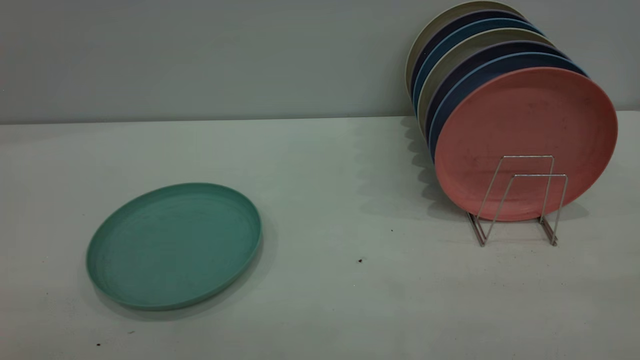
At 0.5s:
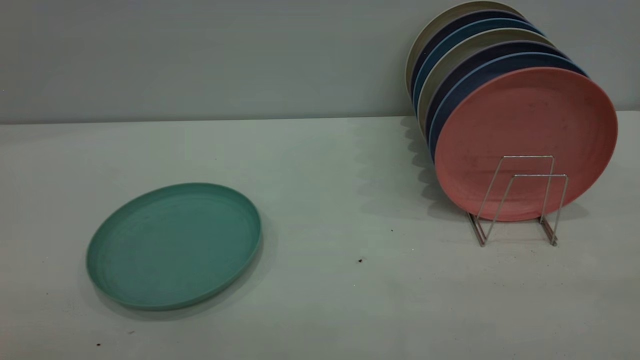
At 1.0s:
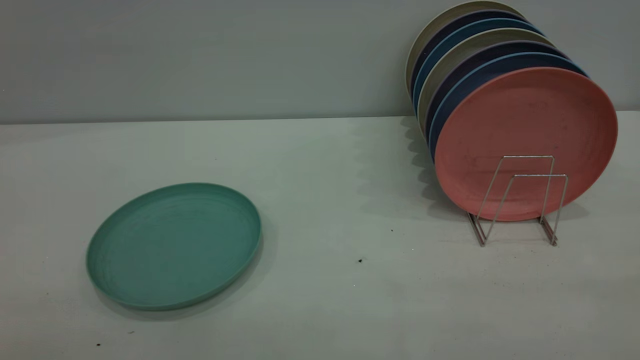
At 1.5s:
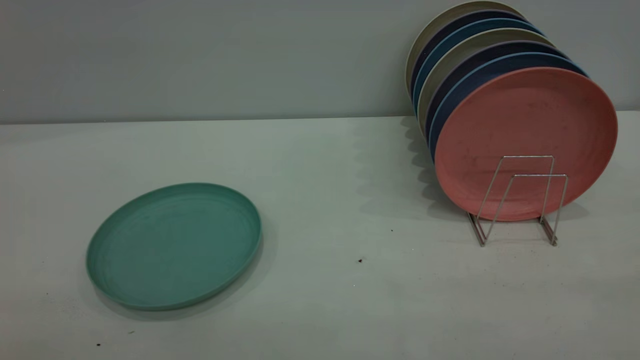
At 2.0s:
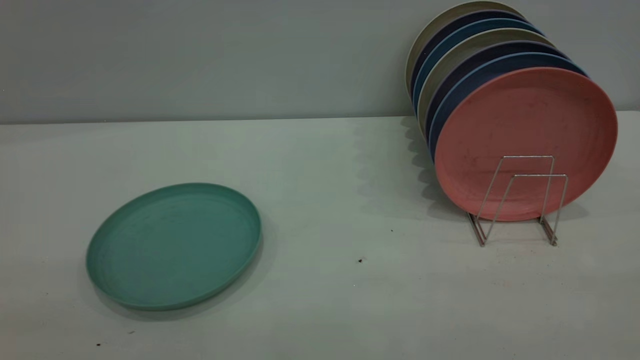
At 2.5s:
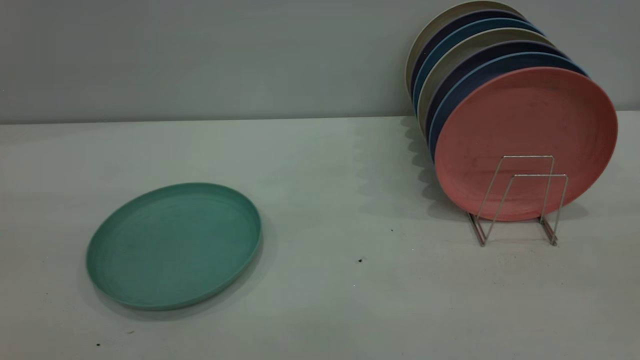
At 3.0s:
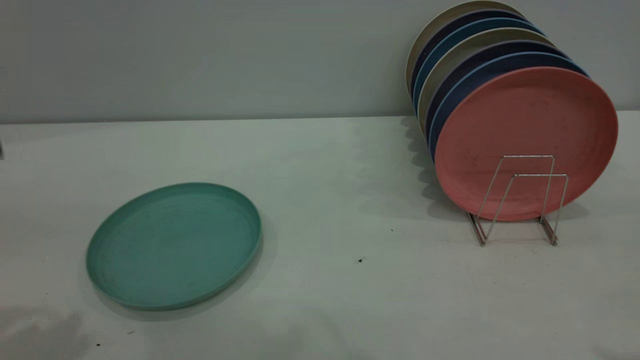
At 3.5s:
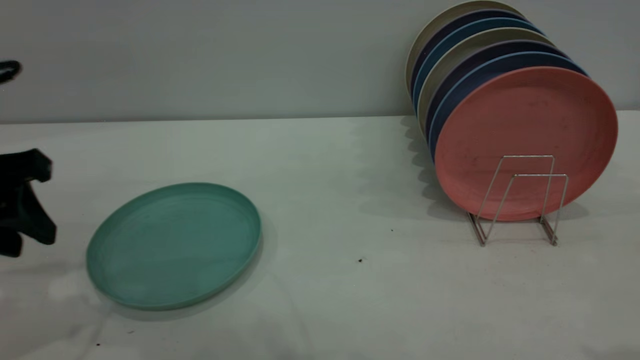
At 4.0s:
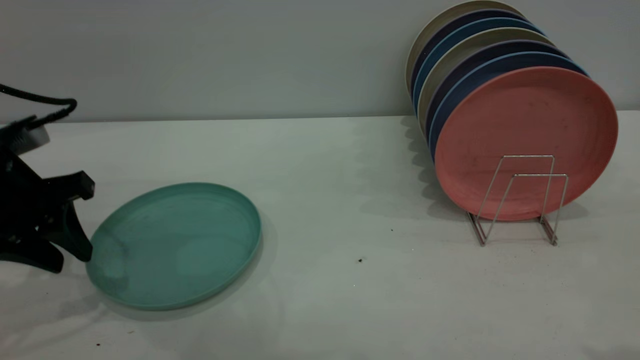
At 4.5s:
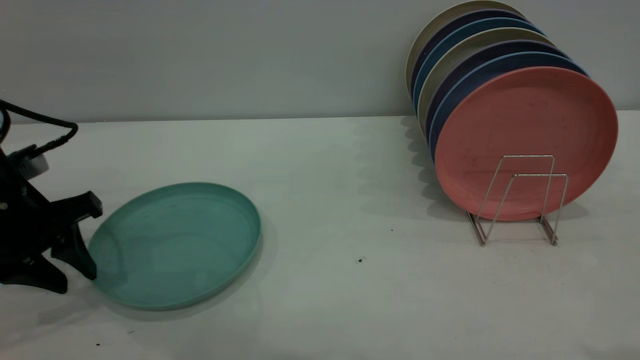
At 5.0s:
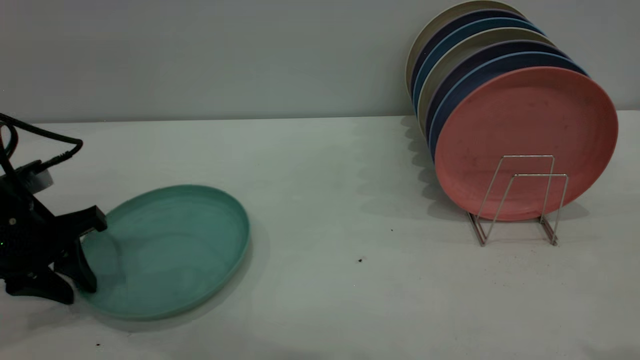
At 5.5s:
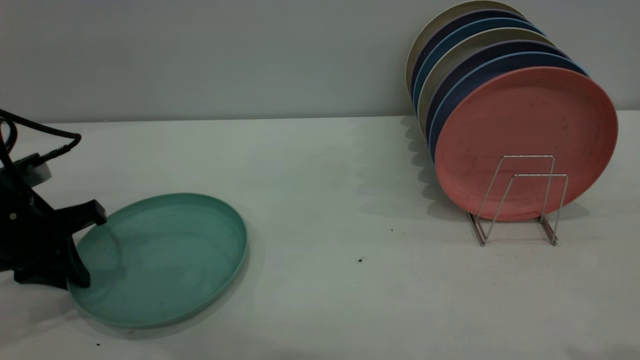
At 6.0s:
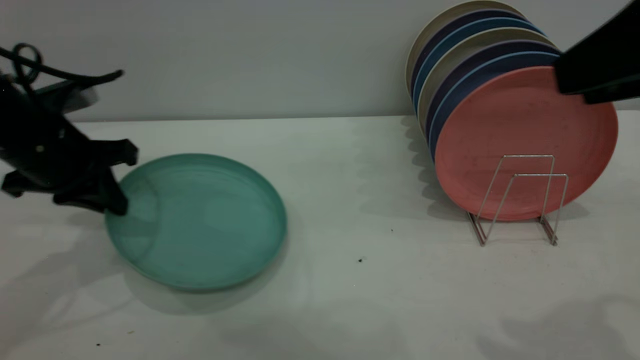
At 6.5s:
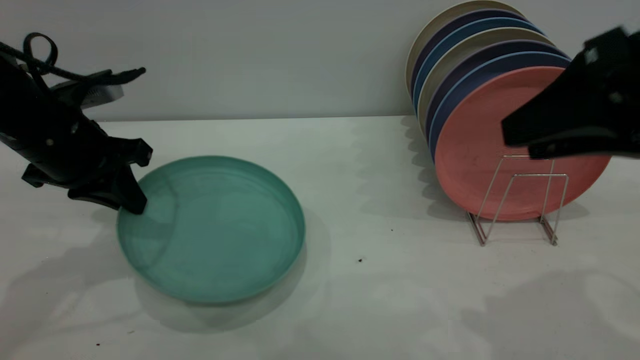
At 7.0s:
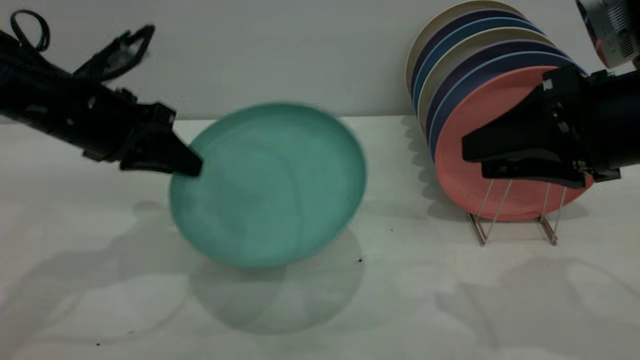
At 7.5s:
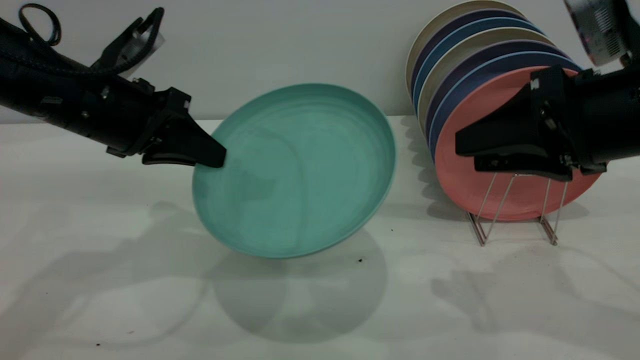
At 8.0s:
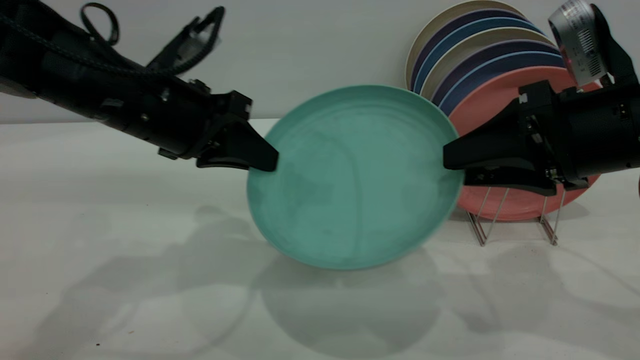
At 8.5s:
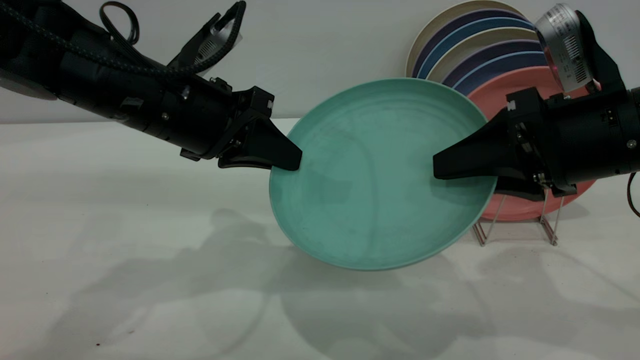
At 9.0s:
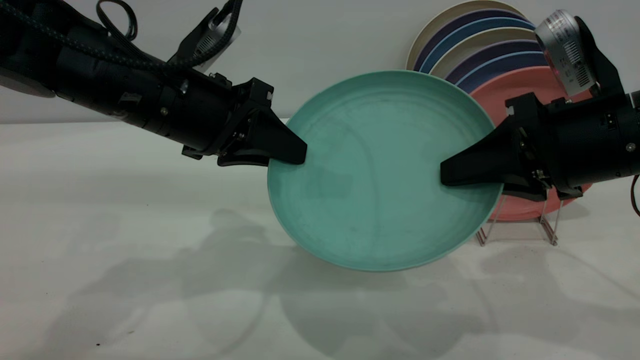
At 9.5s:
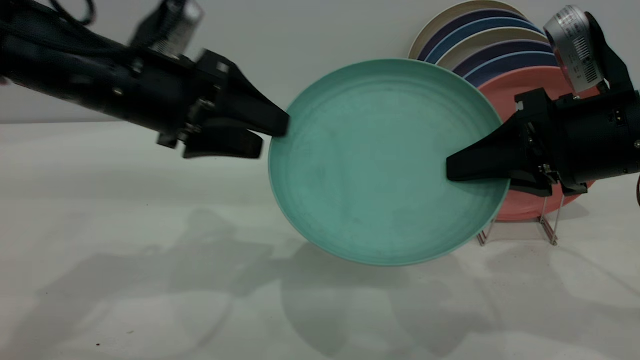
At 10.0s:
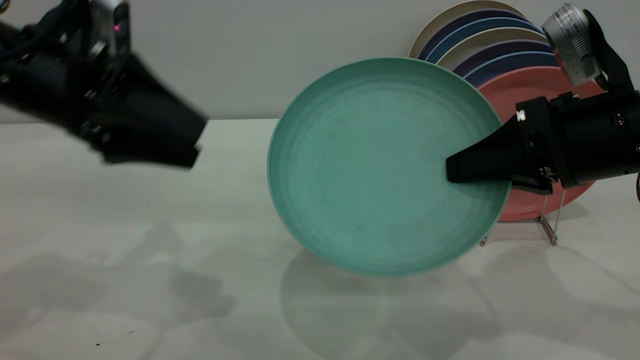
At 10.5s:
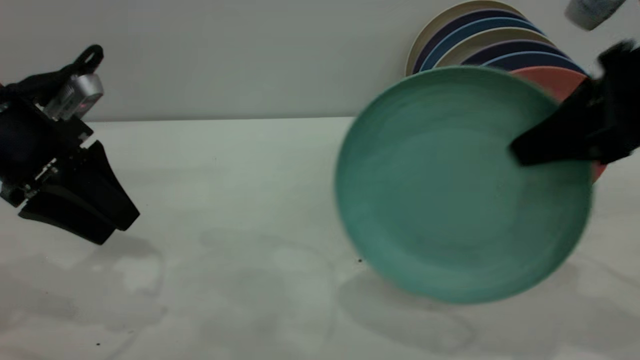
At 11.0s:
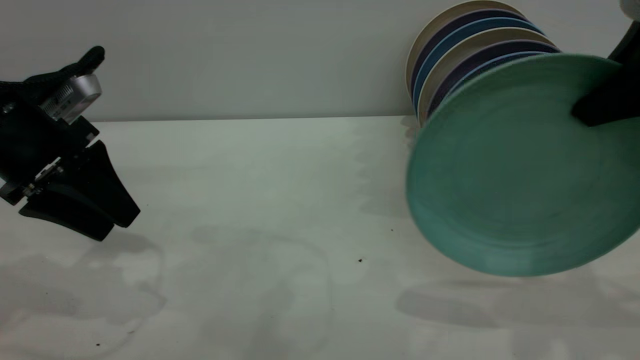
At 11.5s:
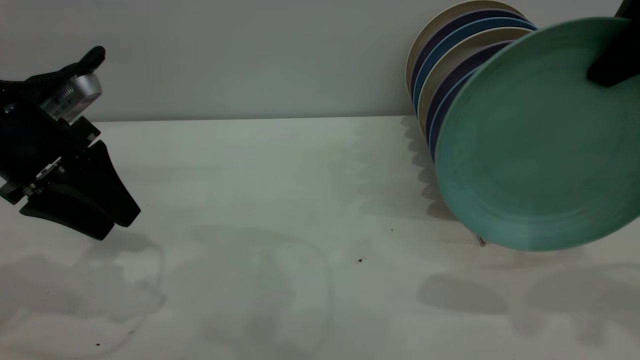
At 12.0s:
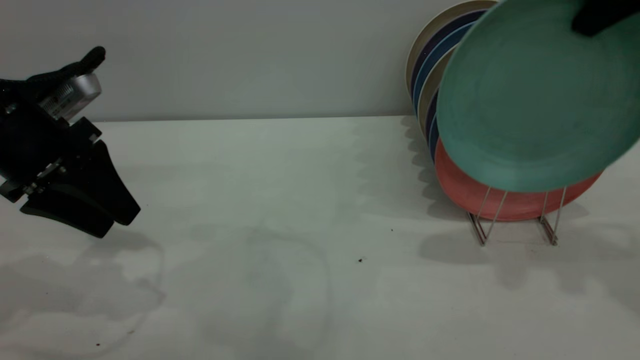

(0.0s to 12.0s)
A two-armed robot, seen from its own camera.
Task of the whole recording: the left gripper grasp the green plate, the left gripper pass the green plate to the right gripper, and the right gripper place the green plate on the plate rack.
Step, 0.0s - 6.5s: Pick up the plate with the left gripper.
Step, 7.0s - 10.0s: Pass the plate from the left gripper to the right gripper.
2.0s - 4.0s: The left gripper shifts roughly 40 cm forward and downward, and closes.
4.0s - 6.0s: The left gripper changes place by approximately 5 cm, and closes its fingers. The right gripper travels forward by some 5 cm.
6.0s - 8.0s: The left gripper shifts some 10 cm to the right. Meanwhile the right gripper shifts approximately 15 cm downward and forward.
8.0s - 10.0s: The right gripper closes; the left gripper shifts approximately 5 cm to the left, and opens its fingers.
10.0s - 12.0s: The right gripper goes some 20 cm upward and forward. The left gripper changes place by some 5 cm.

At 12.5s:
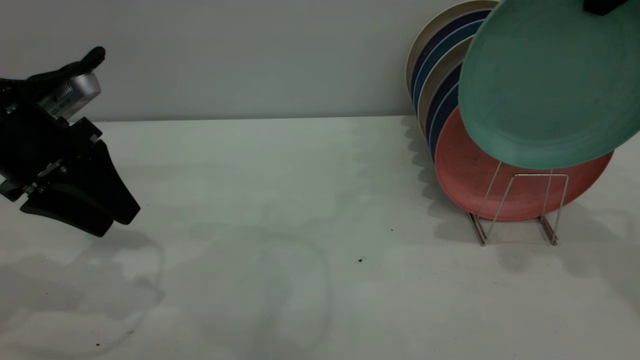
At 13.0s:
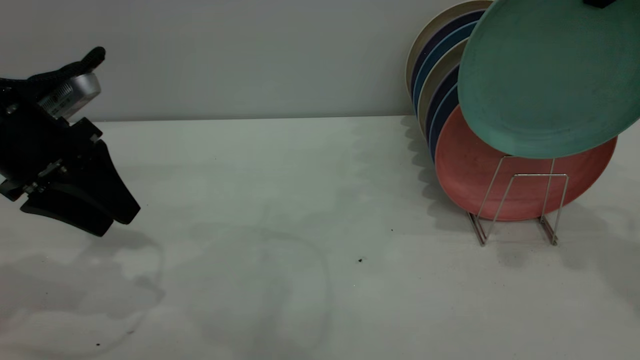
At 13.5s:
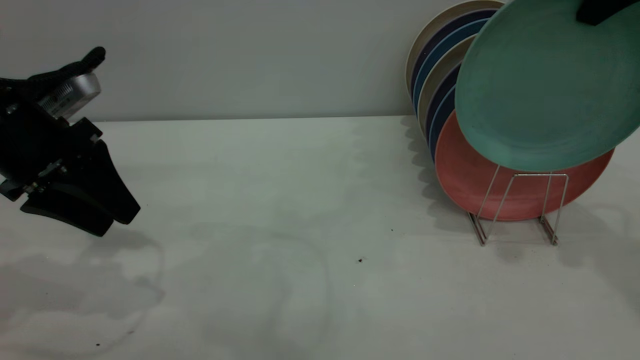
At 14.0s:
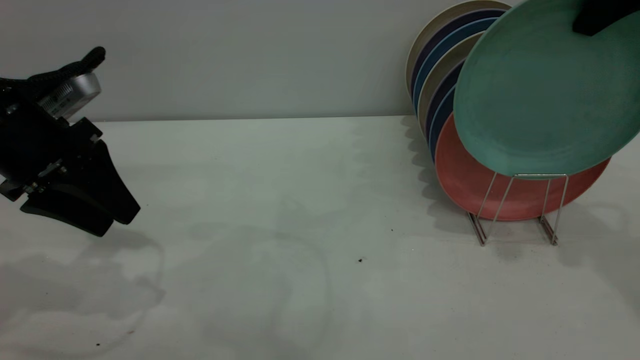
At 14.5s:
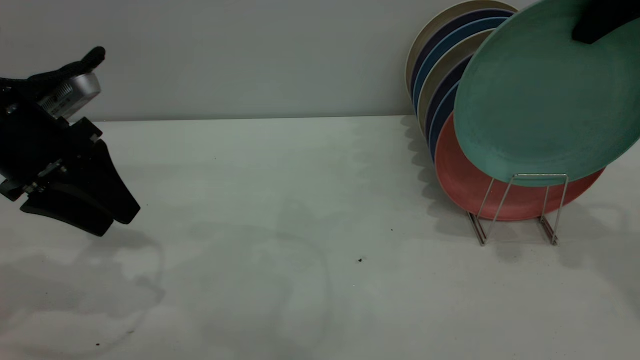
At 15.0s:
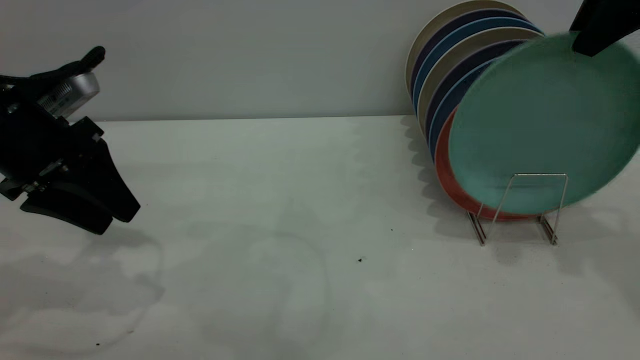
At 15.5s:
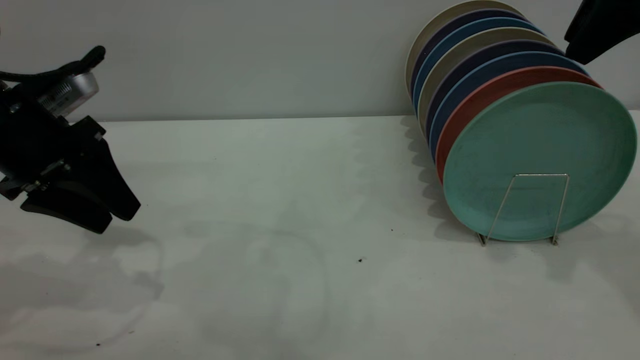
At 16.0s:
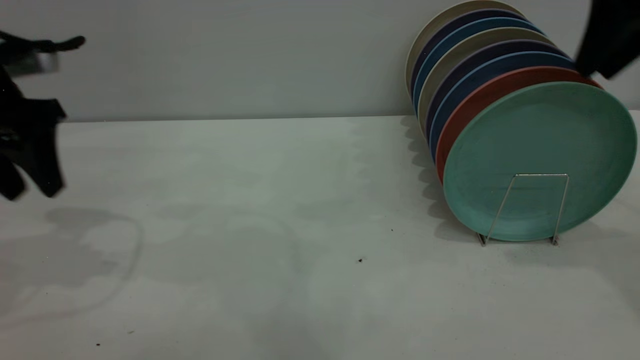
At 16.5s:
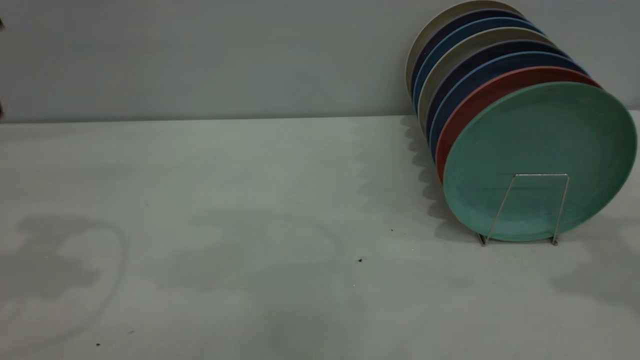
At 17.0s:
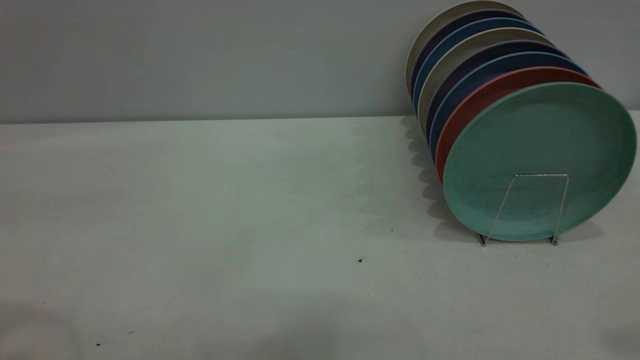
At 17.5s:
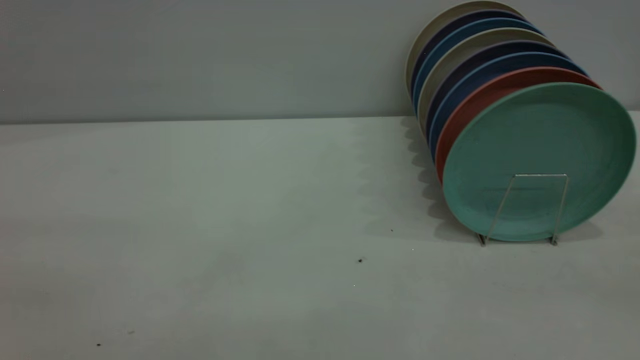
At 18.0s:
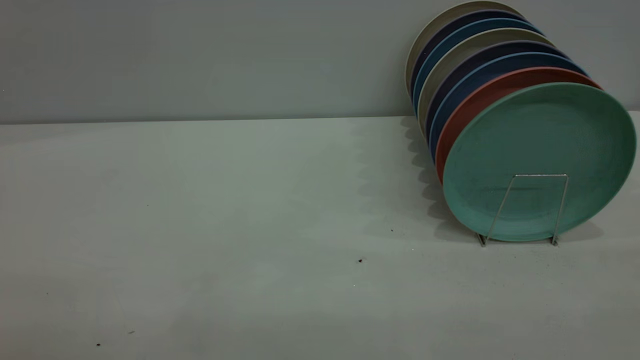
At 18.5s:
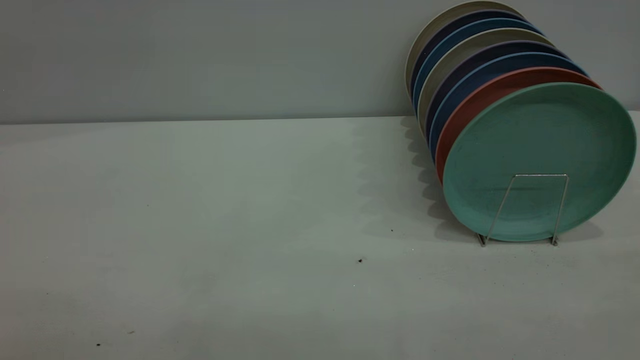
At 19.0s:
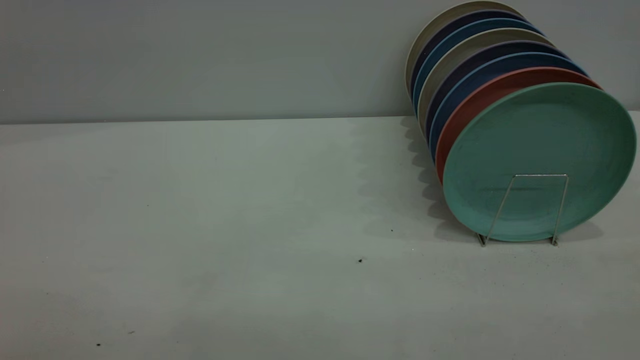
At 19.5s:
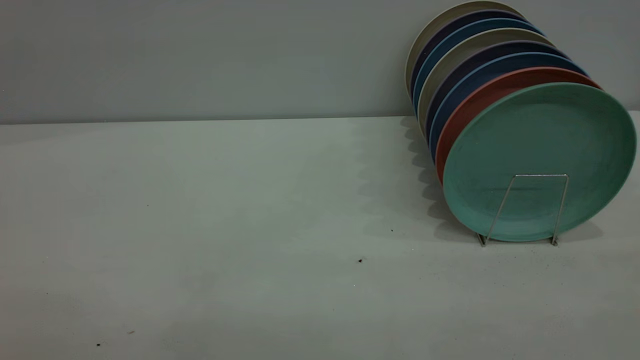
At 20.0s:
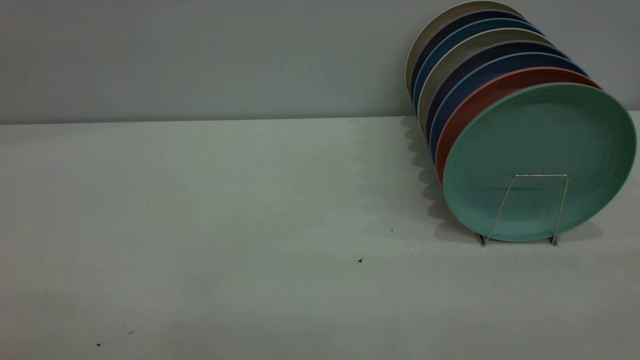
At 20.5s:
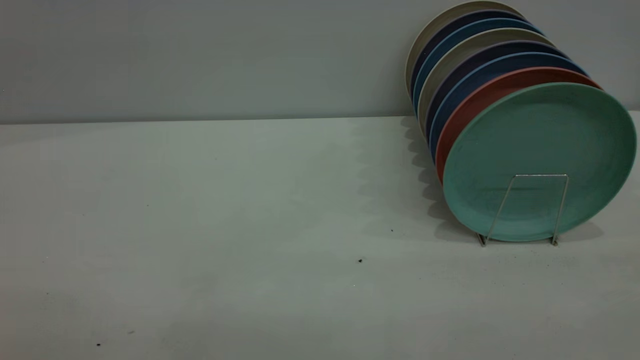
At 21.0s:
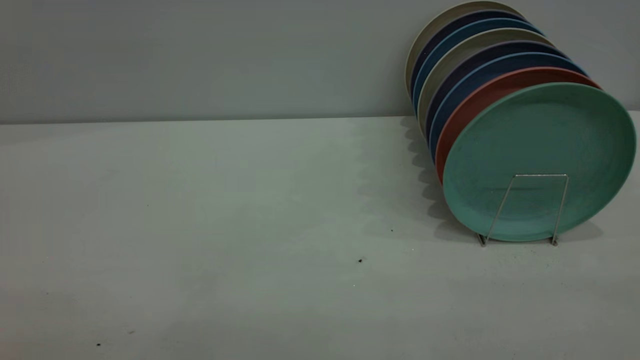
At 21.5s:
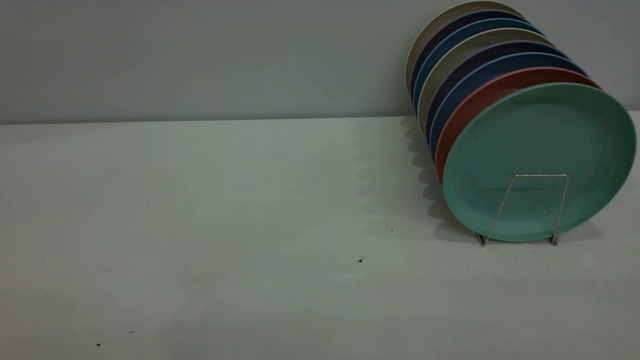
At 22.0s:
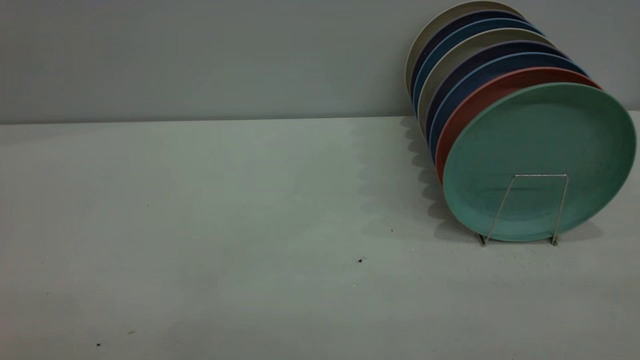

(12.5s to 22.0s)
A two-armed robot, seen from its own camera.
Task of the whole recording: the left gripper grasp the green plate, the left gripper pass the green plate to the right gripper, and the right gripper place the green plate on the plate rack.
Step, 12.5s - 15.0s: Place the plate on the shelf.
12.5s - 14.5s: The grippers move only a little.
14.5s - 16.5s: The right gripper travels backward by about 10 cm, and opens its fingers; the left gripper heads upward, covering approximately 15 cm.
